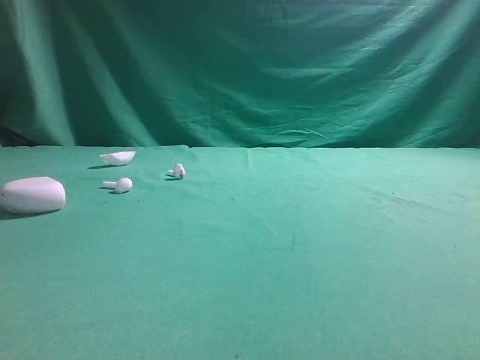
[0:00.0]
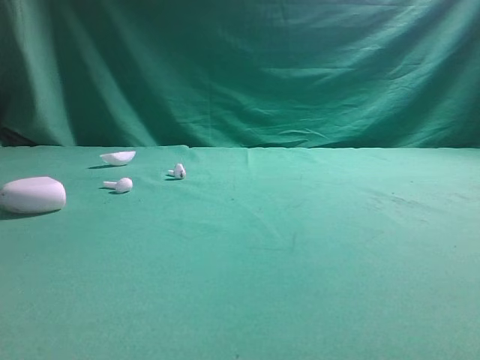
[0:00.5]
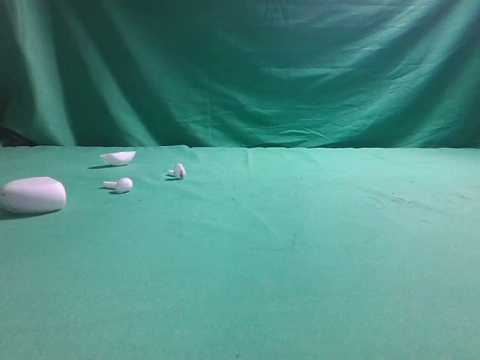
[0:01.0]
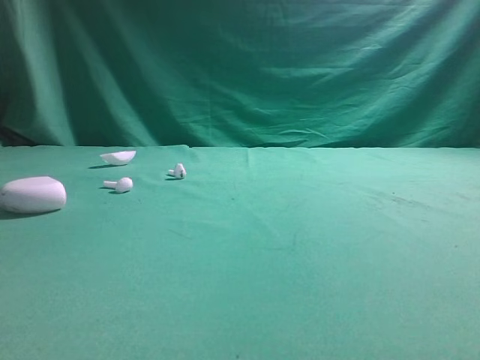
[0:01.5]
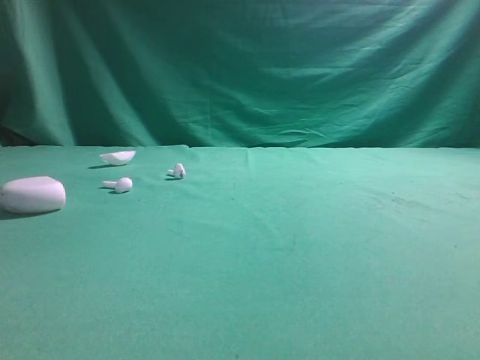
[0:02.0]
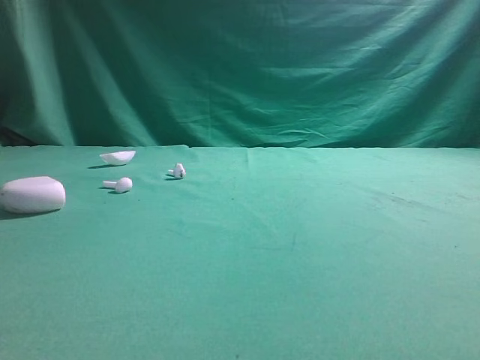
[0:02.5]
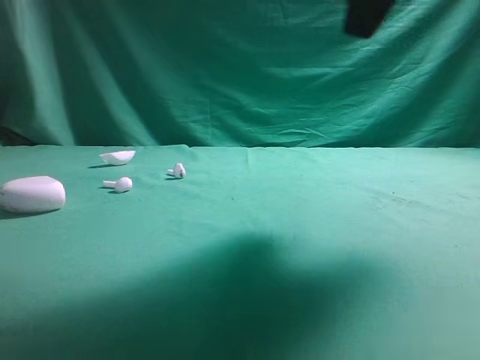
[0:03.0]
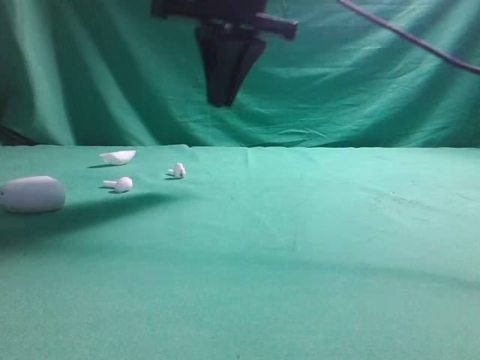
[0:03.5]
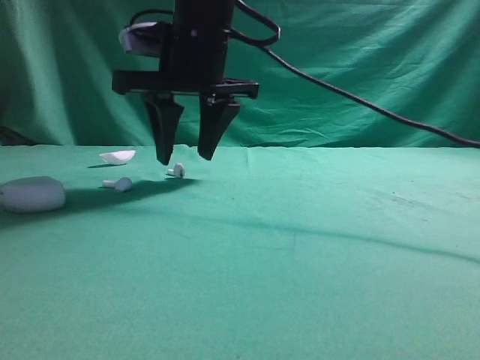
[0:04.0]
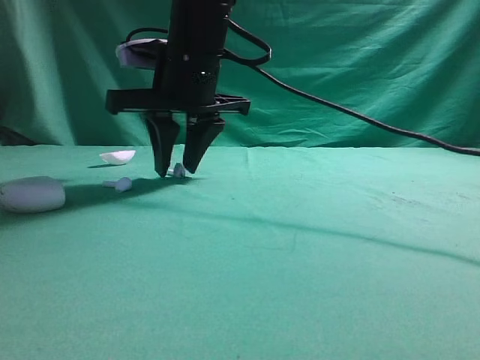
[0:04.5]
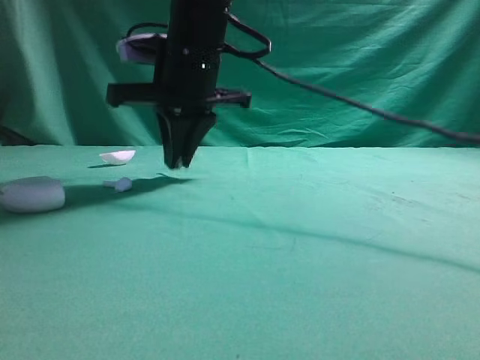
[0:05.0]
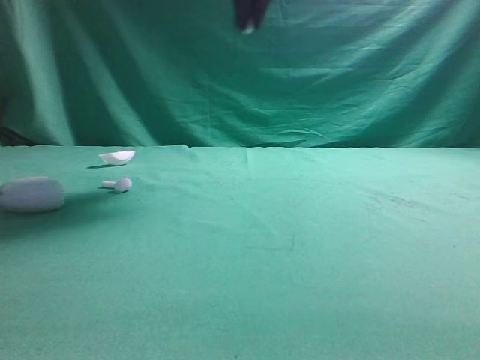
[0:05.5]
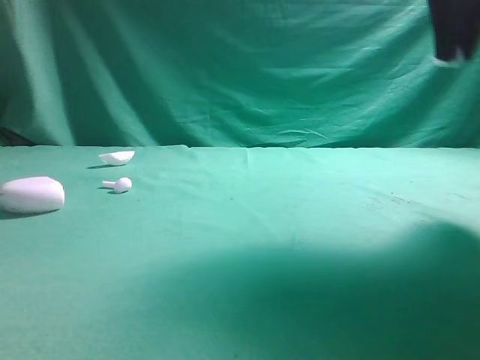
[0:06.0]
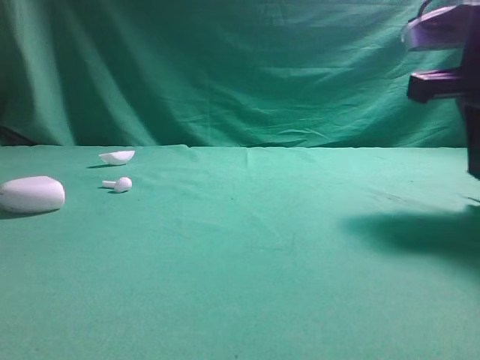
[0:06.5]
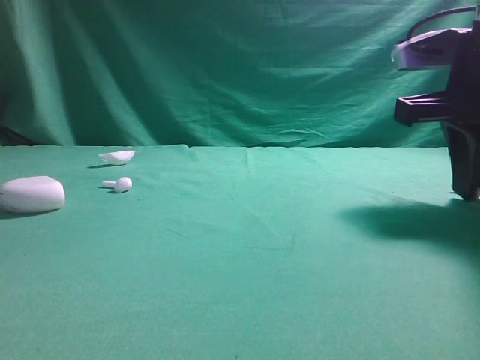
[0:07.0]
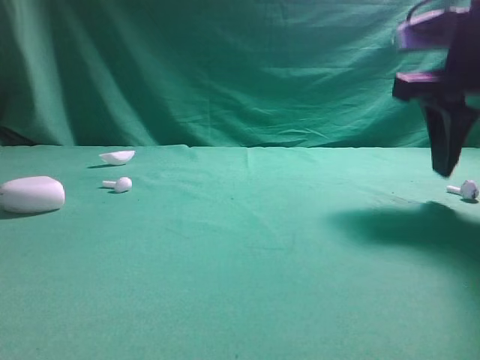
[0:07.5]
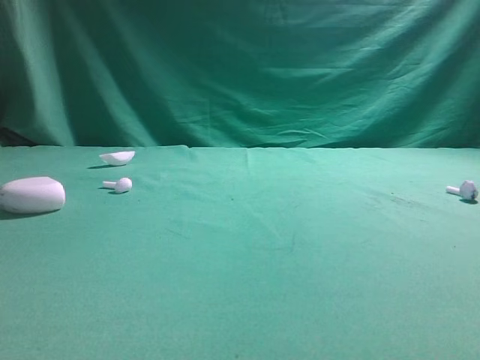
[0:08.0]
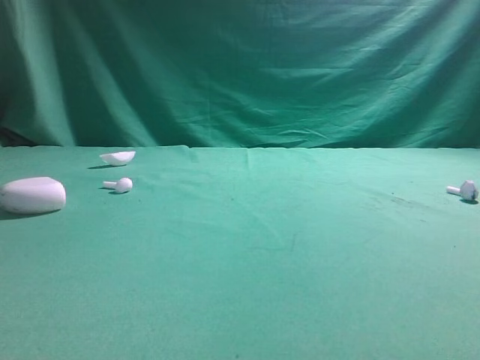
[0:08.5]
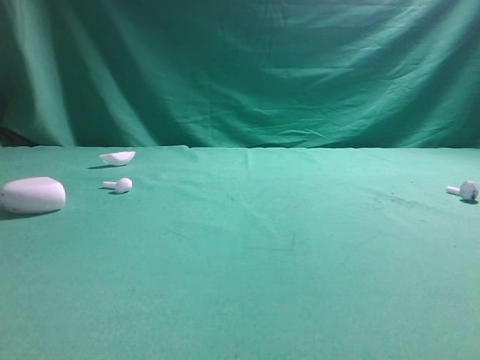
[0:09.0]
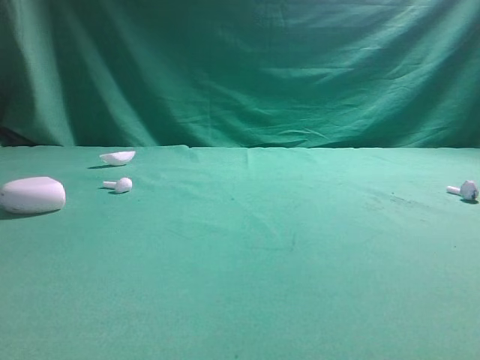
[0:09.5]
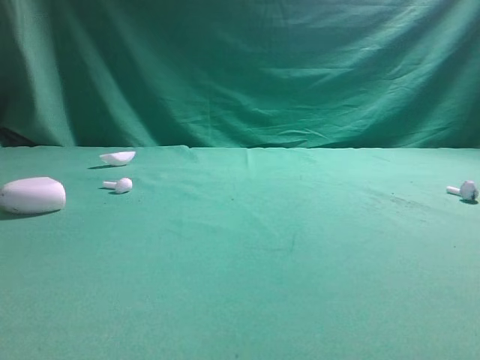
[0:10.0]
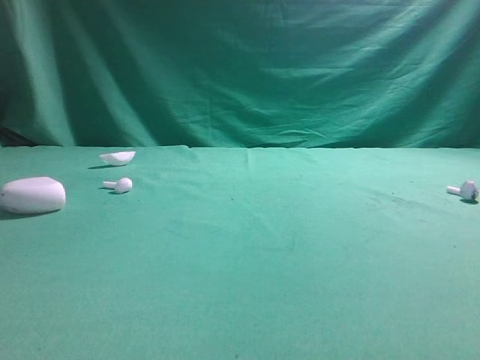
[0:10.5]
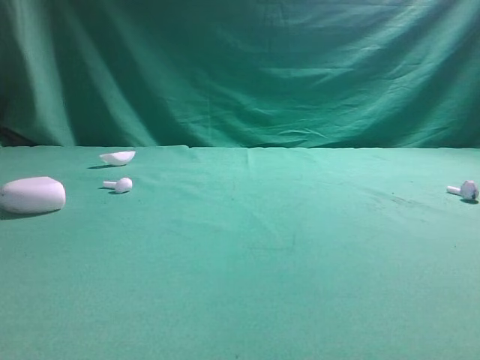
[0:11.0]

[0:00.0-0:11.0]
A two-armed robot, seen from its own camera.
Step, 0:00.0 to 0:05.0: Grasp the Bluetooth earbud.
Step, 0:05.5 to 0:07.5: Place bluetooth earbud on the right side of the table.

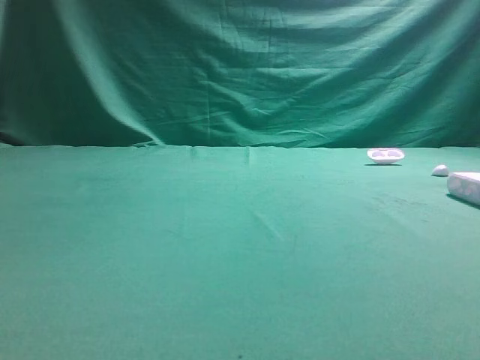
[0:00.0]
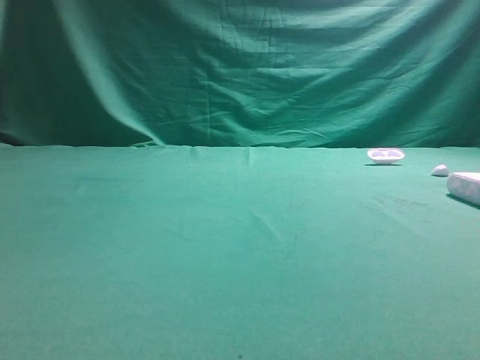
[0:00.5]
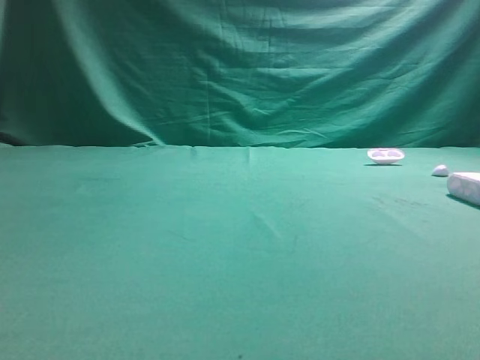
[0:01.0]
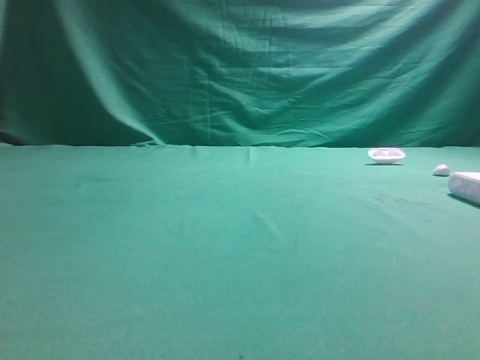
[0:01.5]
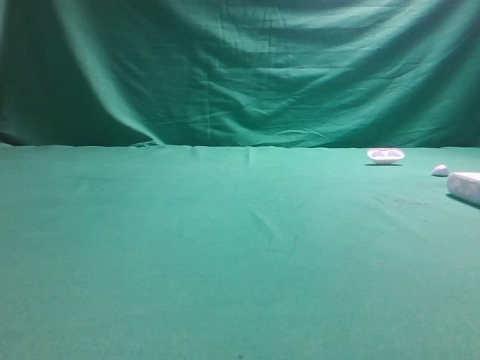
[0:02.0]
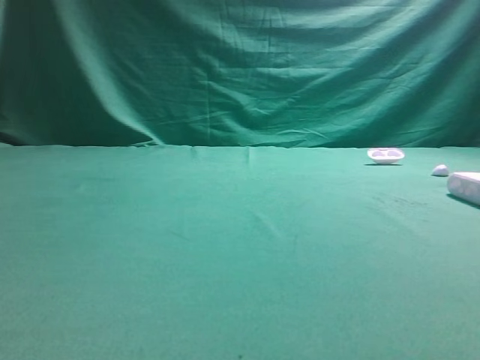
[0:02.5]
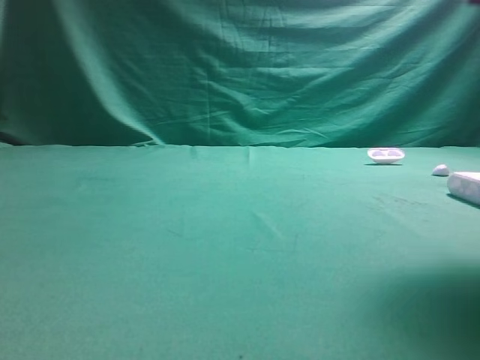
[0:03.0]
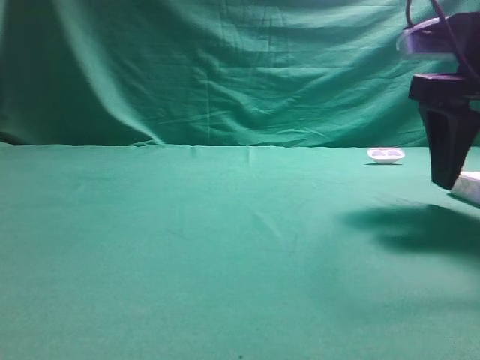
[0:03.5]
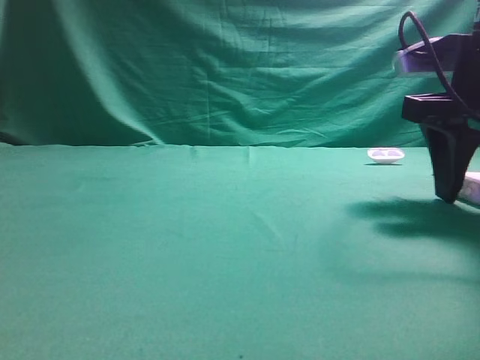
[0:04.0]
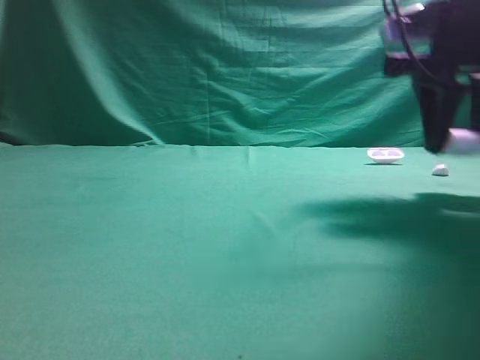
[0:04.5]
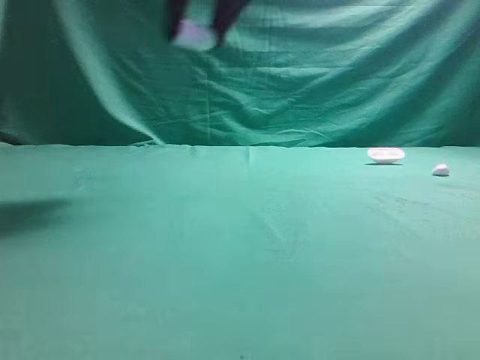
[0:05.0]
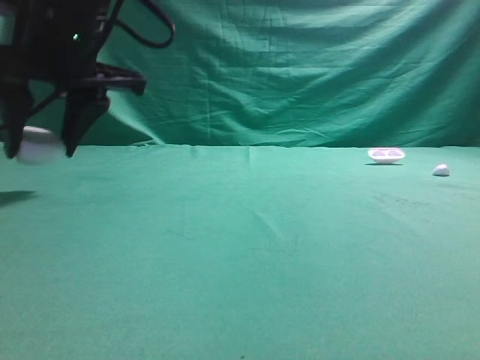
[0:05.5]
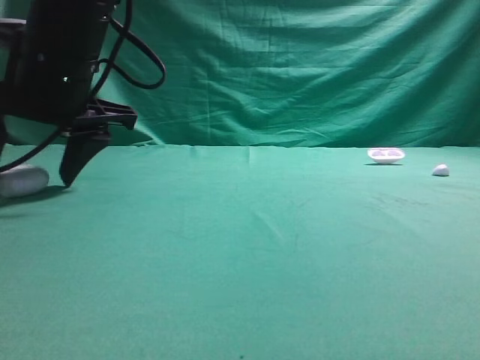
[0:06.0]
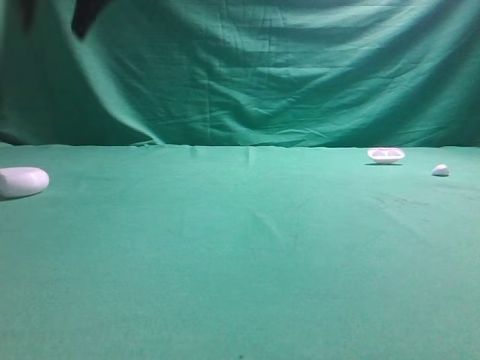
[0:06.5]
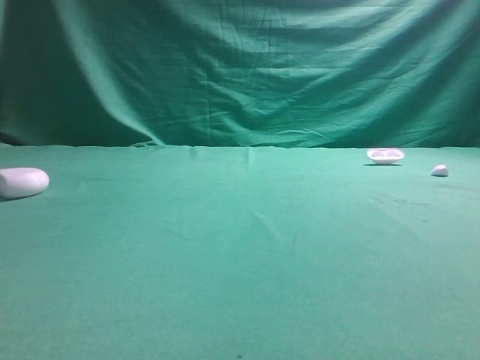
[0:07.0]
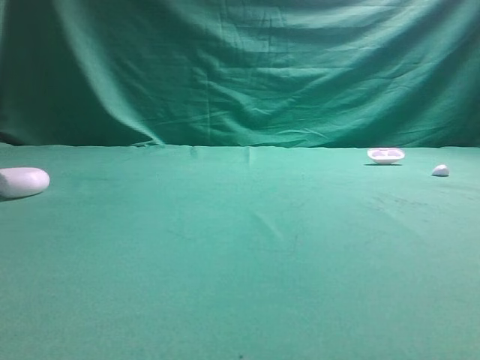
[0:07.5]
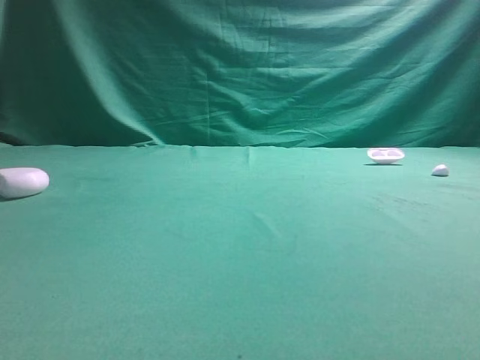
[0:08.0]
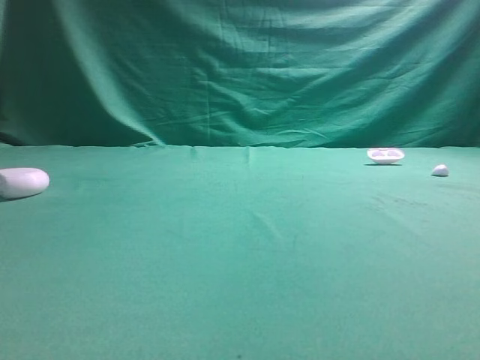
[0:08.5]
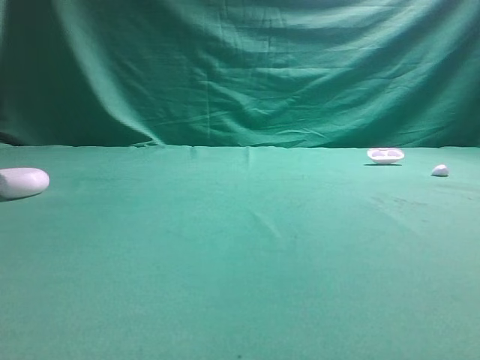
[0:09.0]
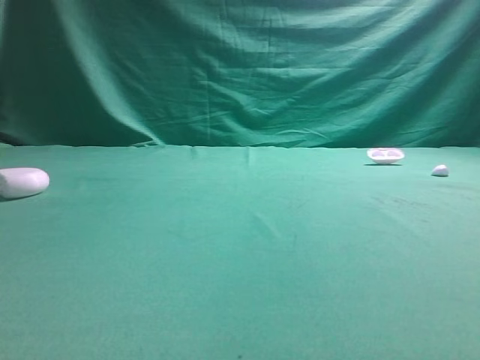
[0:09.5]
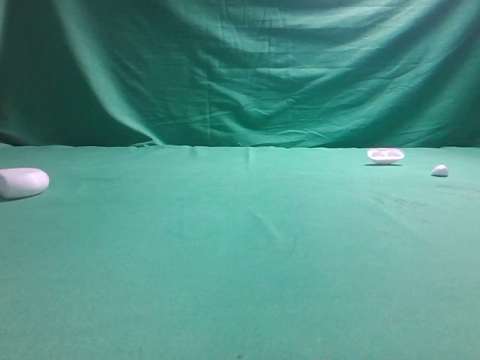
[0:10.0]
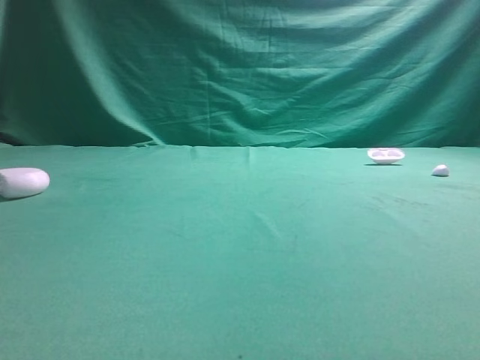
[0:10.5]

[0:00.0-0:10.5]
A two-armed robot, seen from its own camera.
Step, 0:00.0 to 0:04.5: Grasp the Bluetooth earphone case.
Step, 0:05.0 to 0:06.0: Place bluetooth earphone case on the left side of the table.
